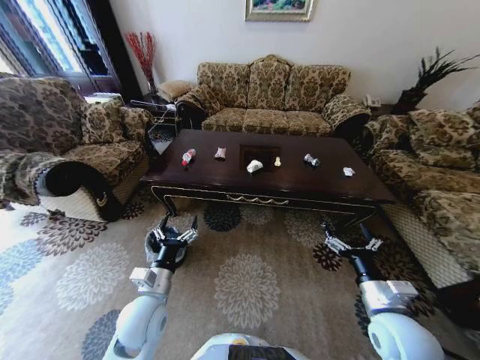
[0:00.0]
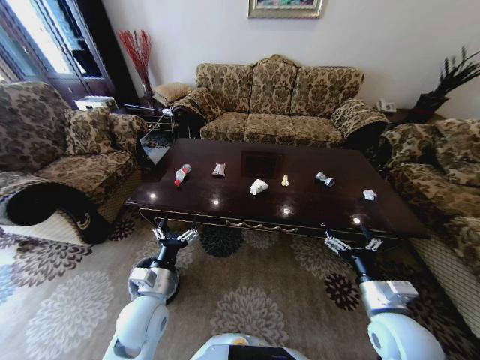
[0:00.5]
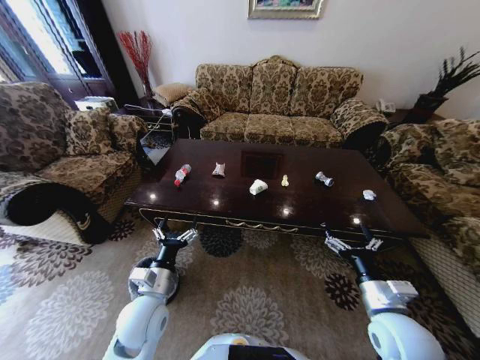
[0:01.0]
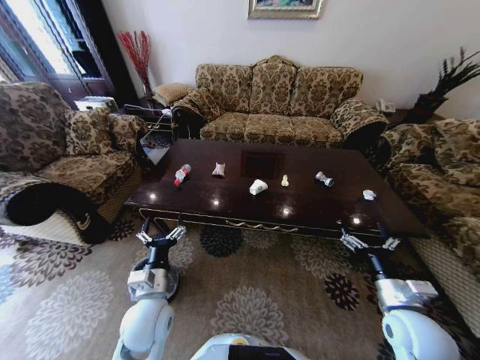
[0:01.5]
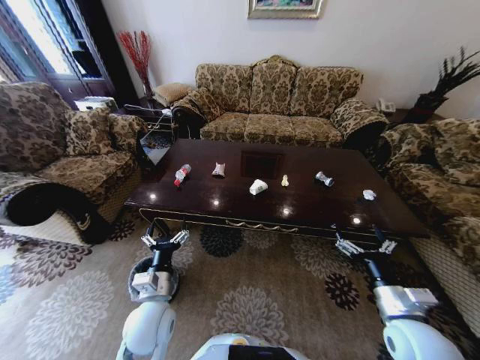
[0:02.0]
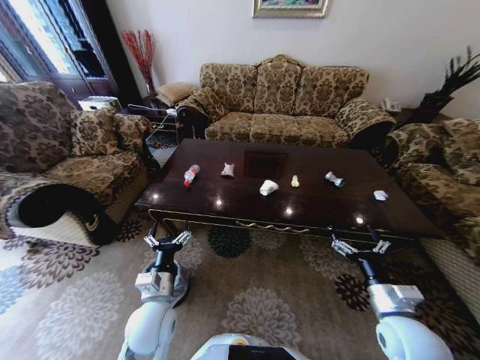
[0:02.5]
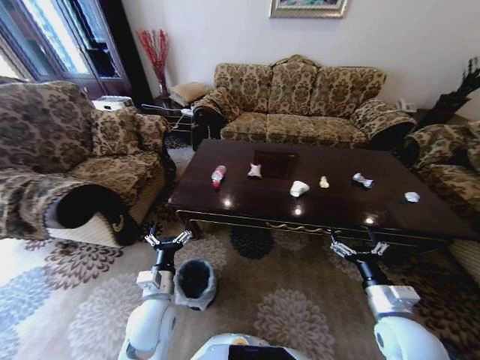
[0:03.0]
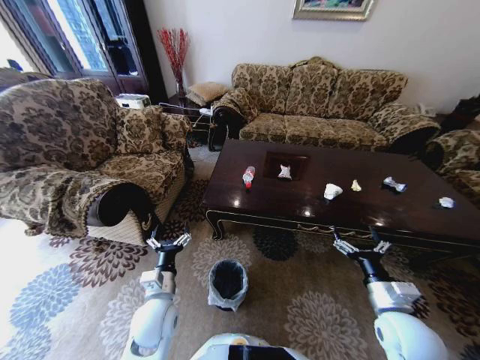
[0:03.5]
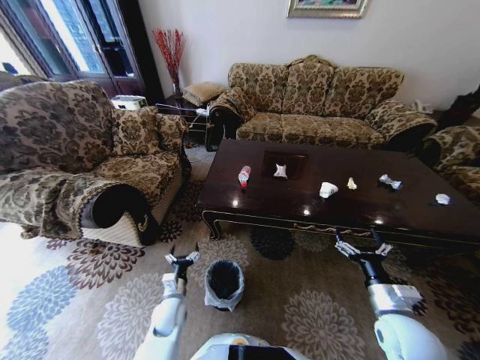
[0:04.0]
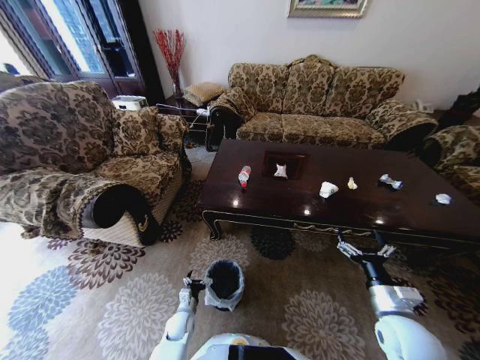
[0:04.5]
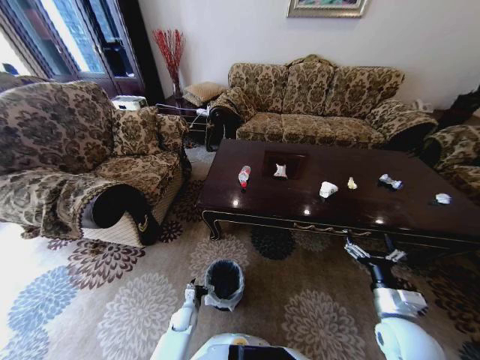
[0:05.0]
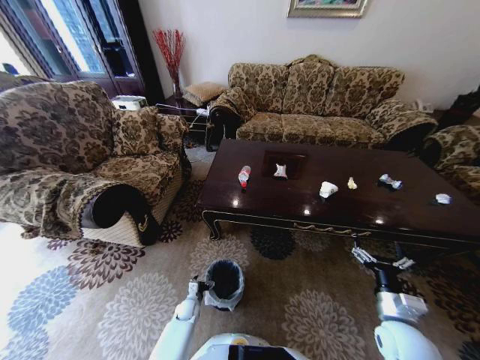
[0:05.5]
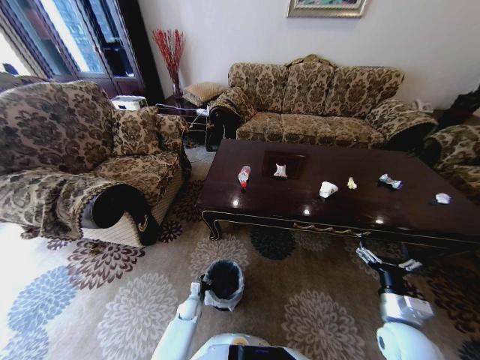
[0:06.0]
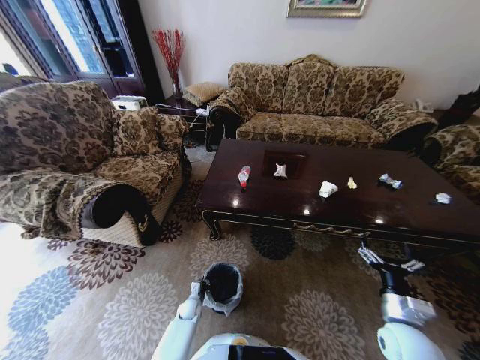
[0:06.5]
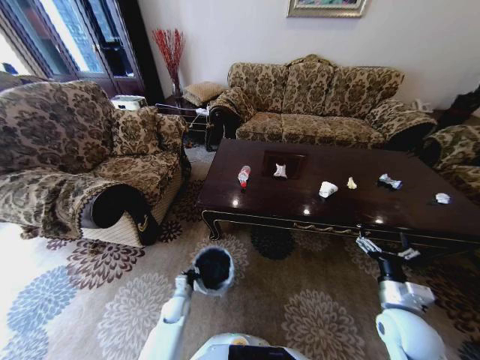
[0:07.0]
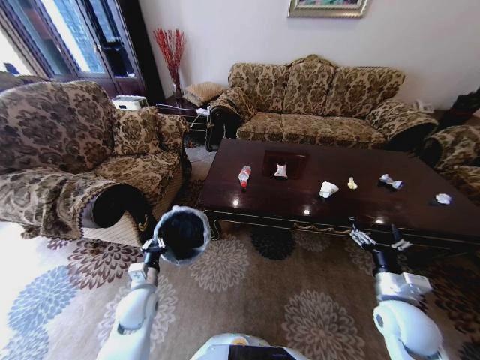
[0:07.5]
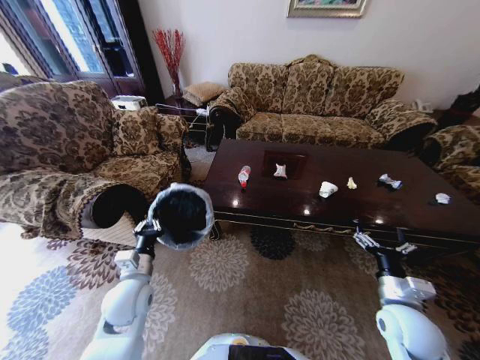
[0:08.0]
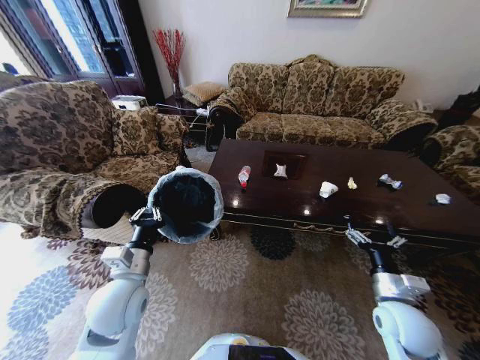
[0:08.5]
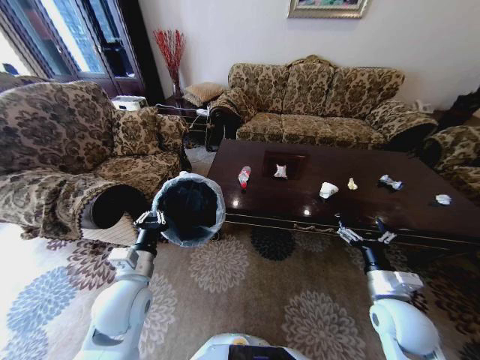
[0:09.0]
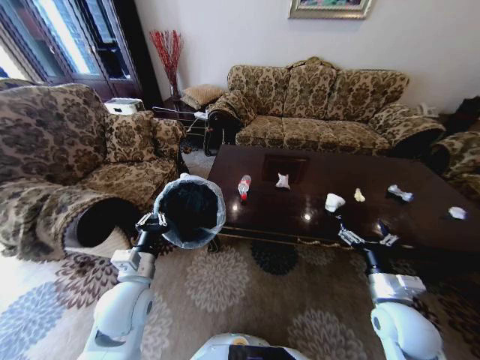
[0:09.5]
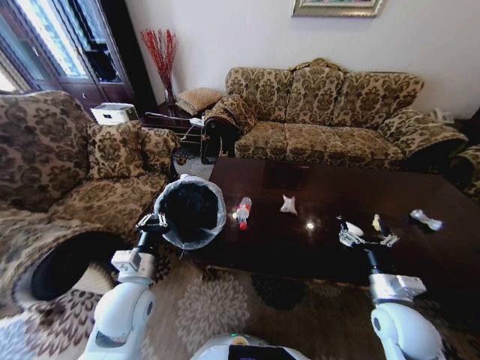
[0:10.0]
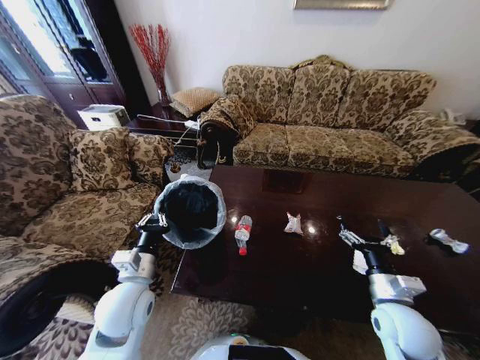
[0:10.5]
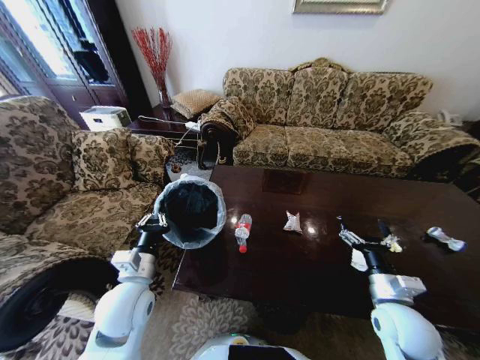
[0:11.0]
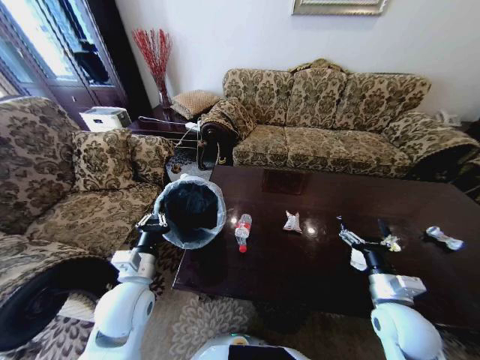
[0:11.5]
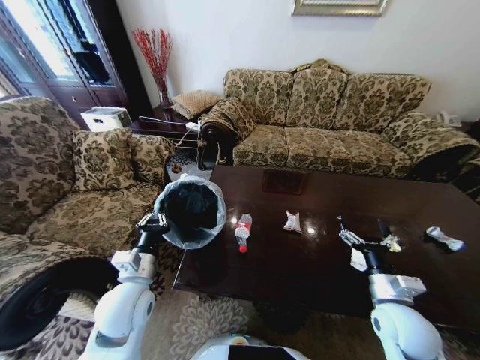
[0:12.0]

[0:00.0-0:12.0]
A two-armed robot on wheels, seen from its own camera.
Task of the whole recording: Move to the front of the table and place the trash on the table into the trash bin.
0:02.0 to 0:04.0: The left gripper shifts roughly 20 cm downward.
0:04.0 to 0:06.0: The left gripper shifts about 15 cm downward, and closes.
0:06.0 to 0:08.0: The left gripper moves upward, about 35 cm, and closes up.
0:08.0 to 0:10.0: The left gripper ends up approximately 5 cm from where it was.

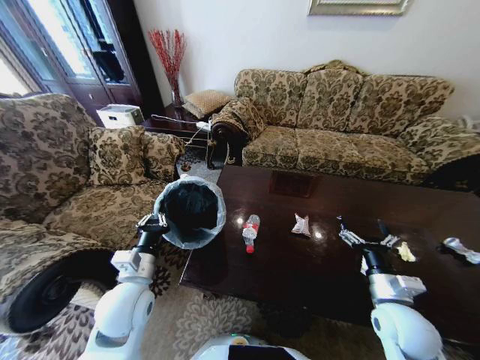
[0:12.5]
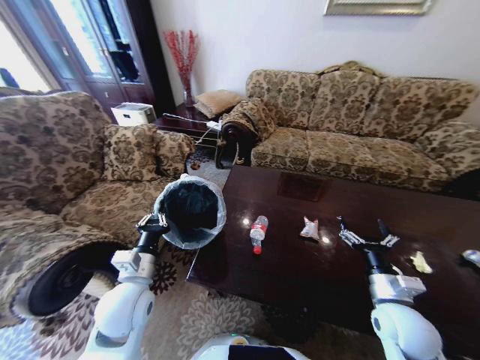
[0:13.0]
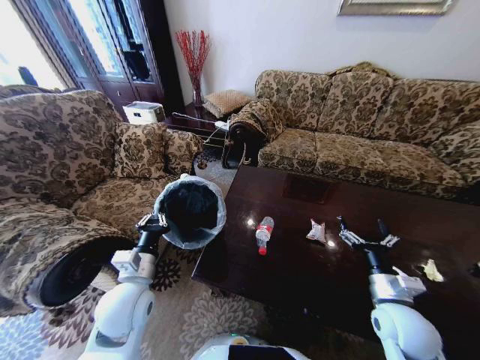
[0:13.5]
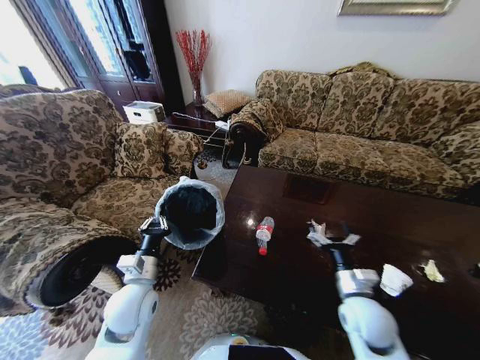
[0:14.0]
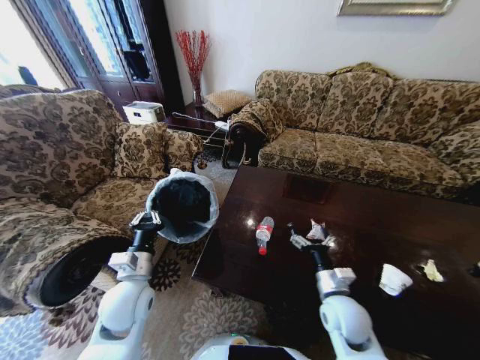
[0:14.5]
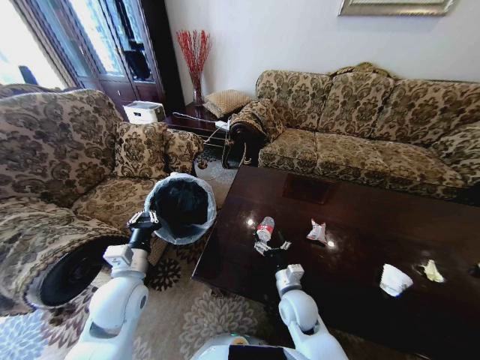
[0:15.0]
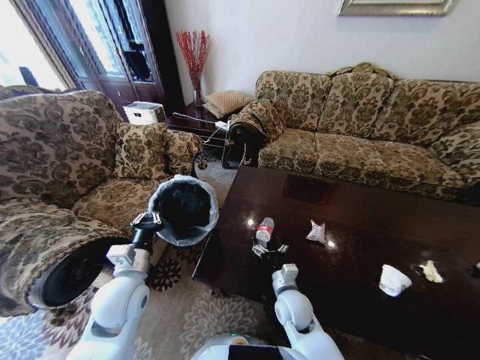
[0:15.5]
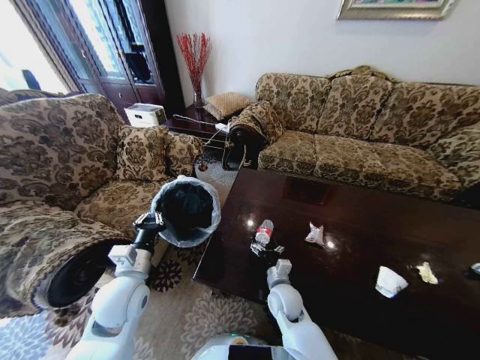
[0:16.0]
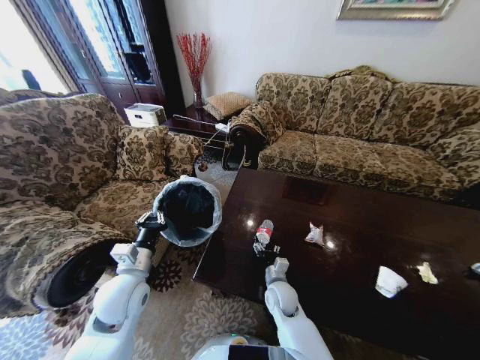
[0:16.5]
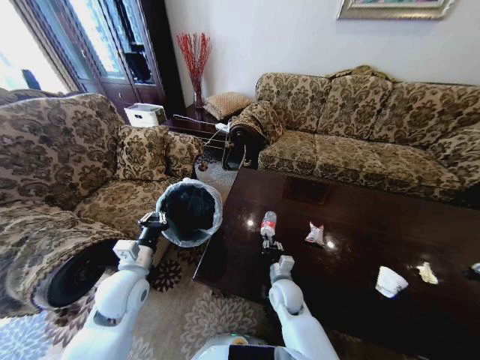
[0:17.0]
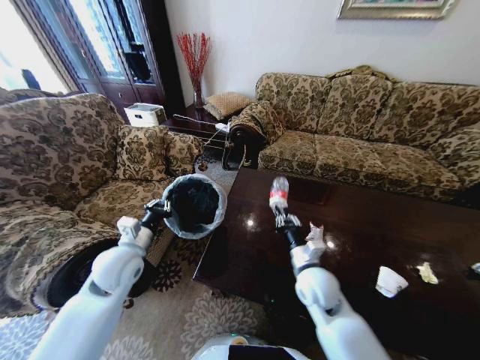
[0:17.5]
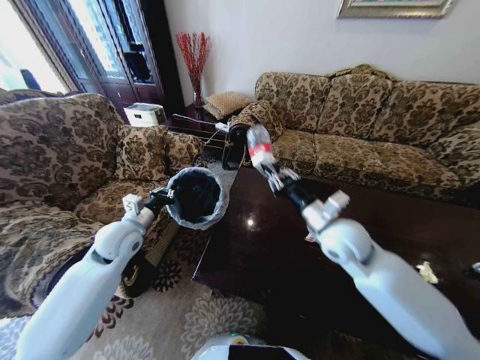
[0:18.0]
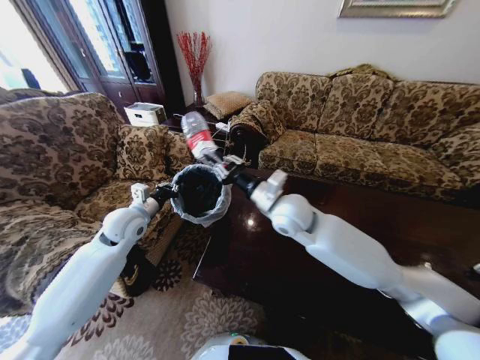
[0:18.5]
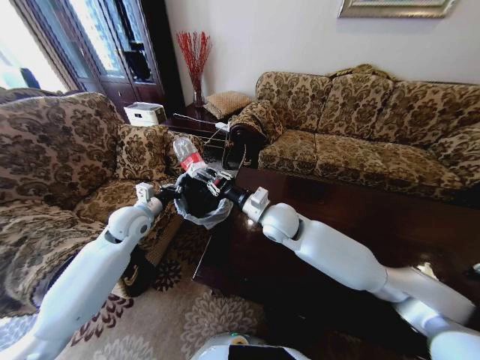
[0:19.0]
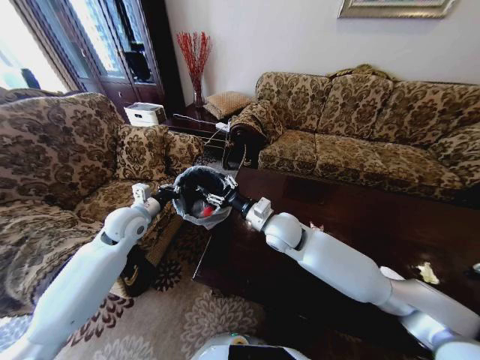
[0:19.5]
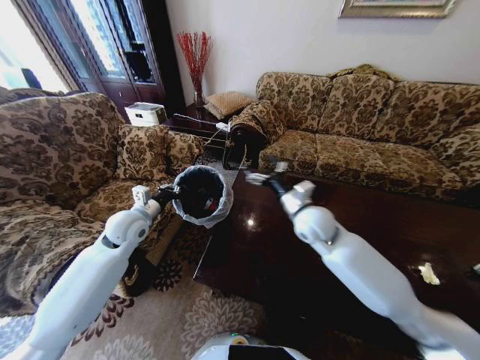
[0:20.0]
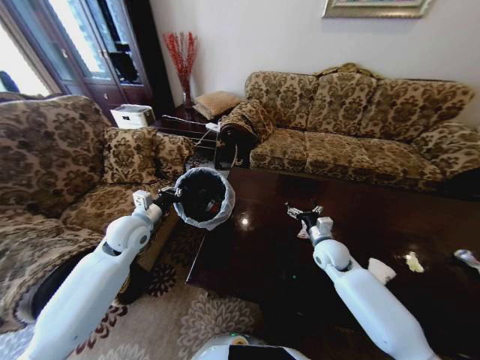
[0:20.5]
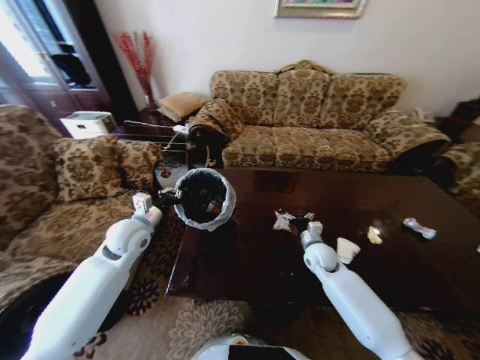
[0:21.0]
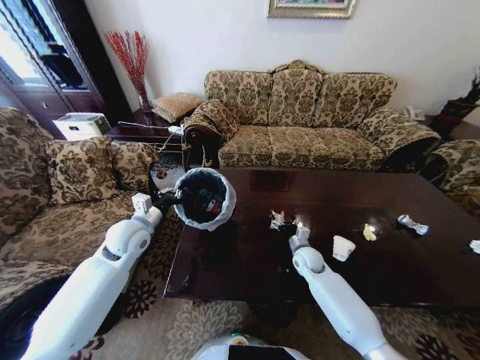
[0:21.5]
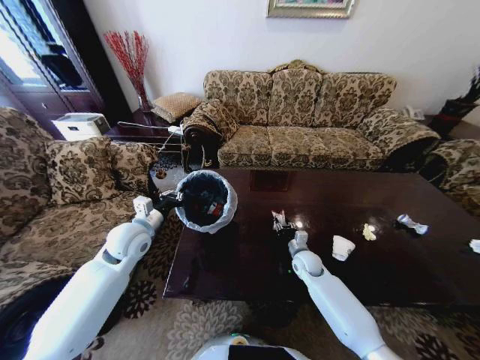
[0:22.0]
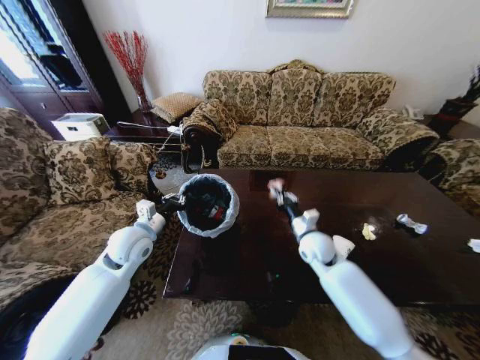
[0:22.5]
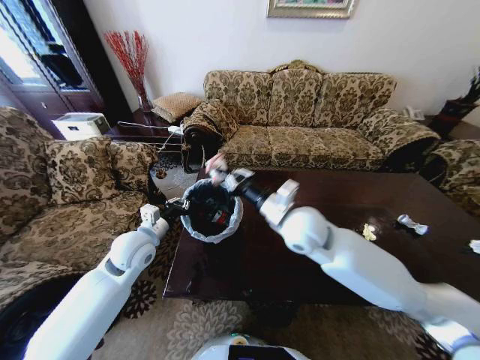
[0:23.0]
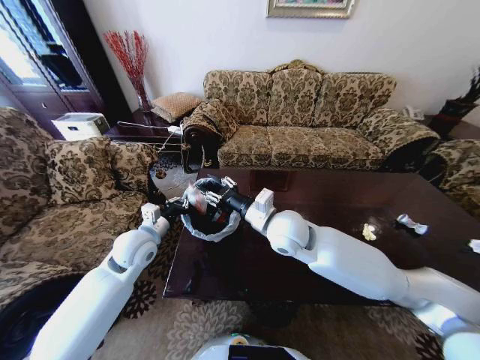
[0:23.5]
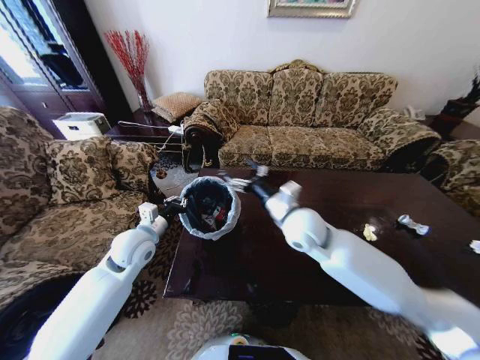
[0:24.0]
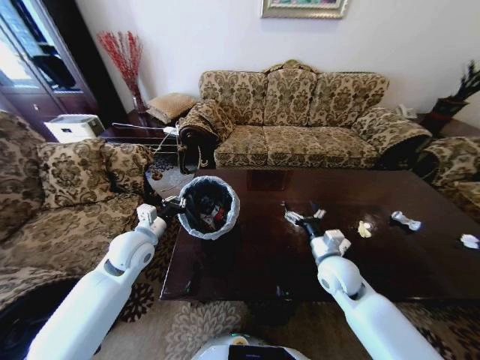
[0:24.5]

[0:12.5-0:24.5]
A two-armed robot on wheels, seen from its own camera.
Task of the whole recording: Move to the front of the table and place the trash on the table into the trash bin.
0:12.5 to 0:14.5: The right gripper shifts about 10 cm to the left.
0:14.5 to 0:16.5: The right gripper heads to the left, downward and forward, covering about 15 cm.
0:16.5 to 0:18.5: The right gripper heads upward, covering some 30 cm, and closes its fingers; the left gripper shifts about 15 cm forward.
0:18.5 to 0:20.5: The right gripper travels downward and to the right by roughly 25 cm, and opens its fingers.
0:20.5 to 0:22.5: The right gripper moves to the left and upward, some 10 cm, and closes.
0:22.5 to 0:24.5: The right gripper shifts roughly 10 cm backward, reaches some 15 cm to the left, then returns, and opens.

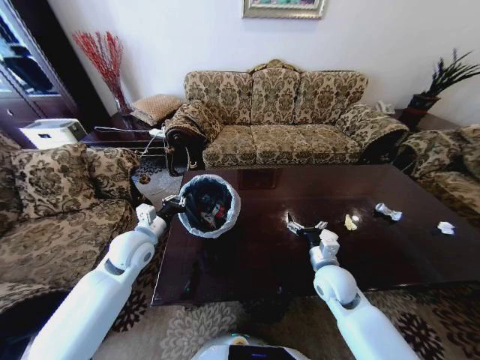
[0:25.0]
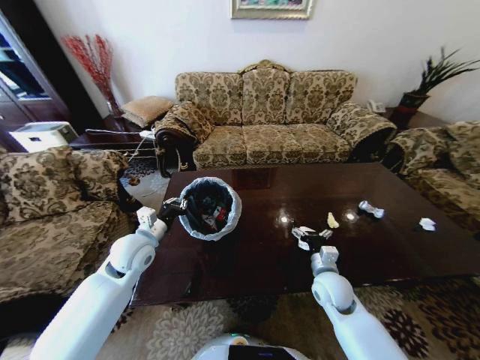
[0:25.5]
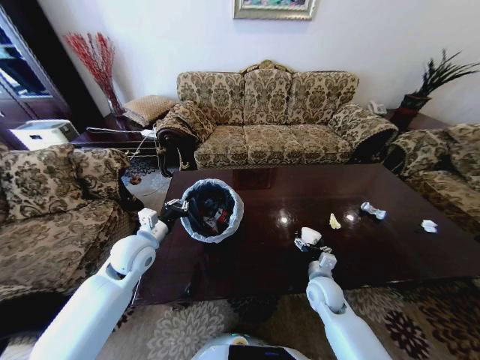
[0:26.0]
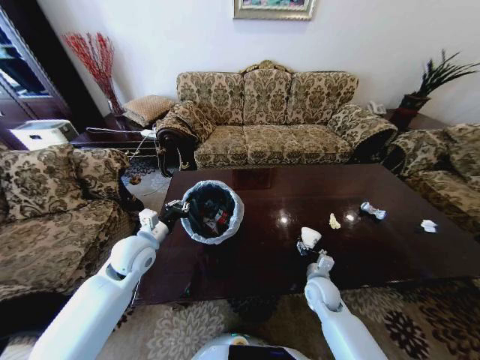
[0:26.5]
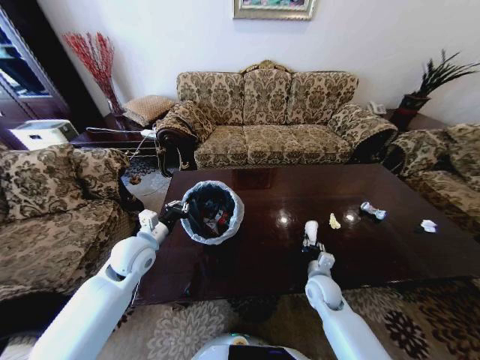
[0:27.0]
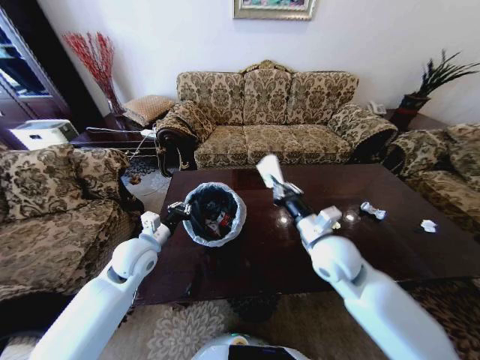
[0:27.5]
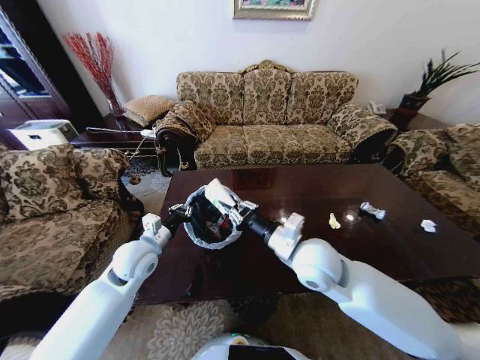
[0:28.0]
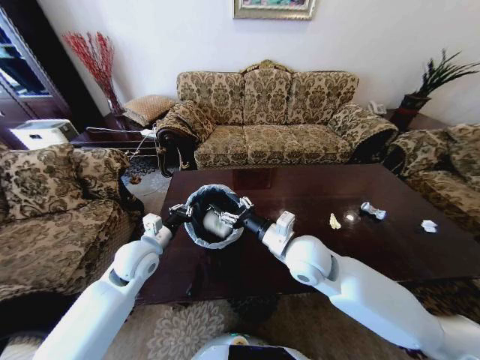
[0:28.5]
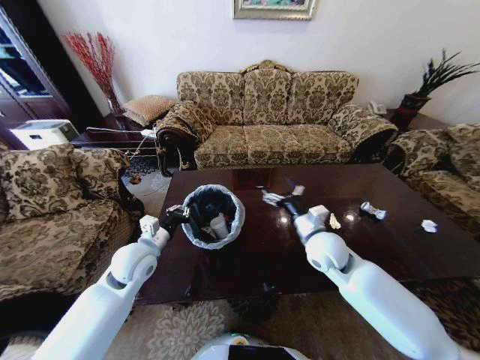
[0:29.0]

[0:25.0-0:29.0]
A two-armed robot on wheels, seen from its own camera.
Task of the whole recording: Move to the front of the table and place the trash on the table into the trash bin.
0:25.0 to 0:27.0: The right gripper moves downward, about 10 cm, and closes.
0:27.0 to 0:29.0: The right gripper travels upward by approximately 20 cm, and opens.
